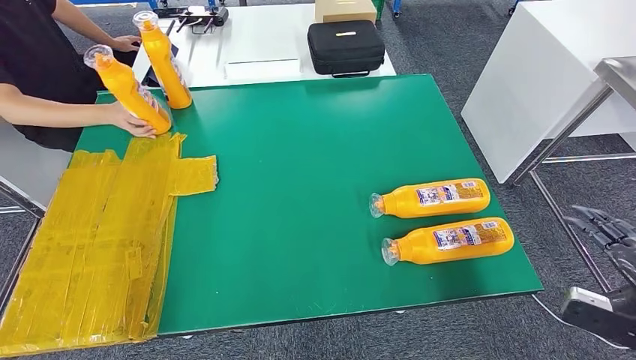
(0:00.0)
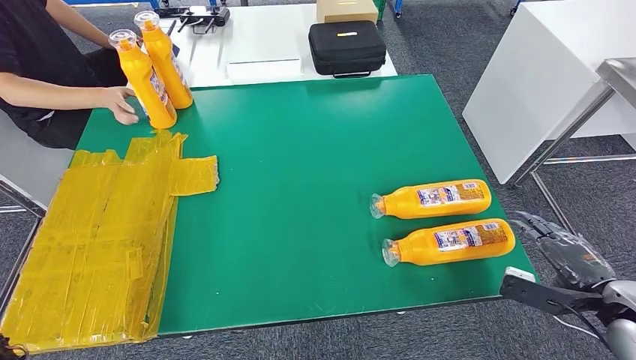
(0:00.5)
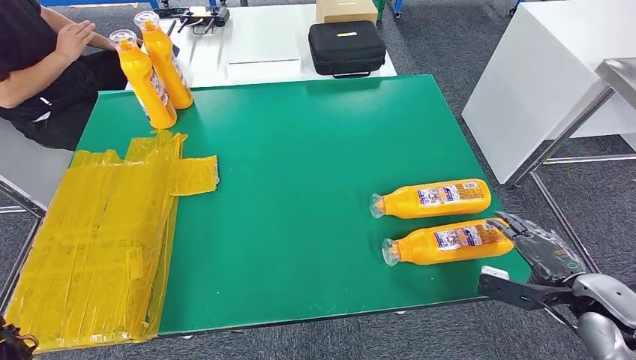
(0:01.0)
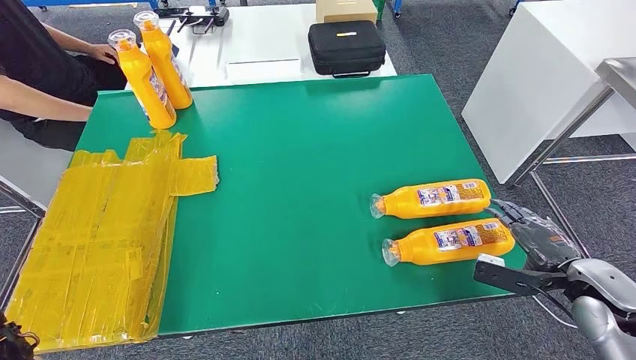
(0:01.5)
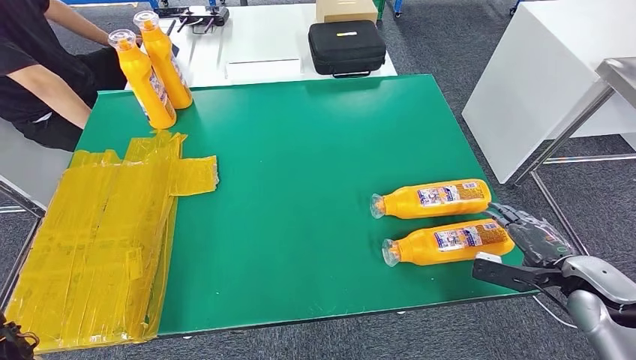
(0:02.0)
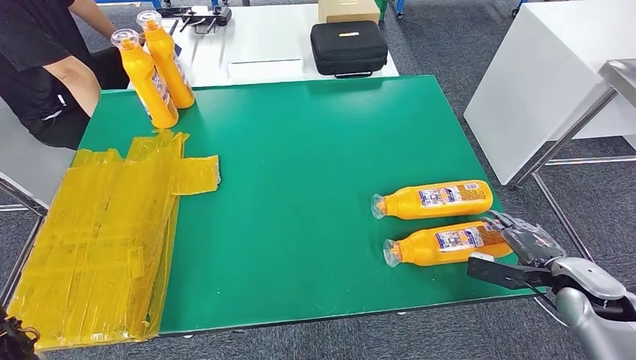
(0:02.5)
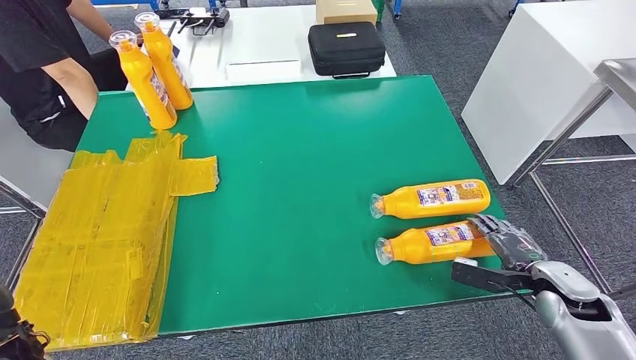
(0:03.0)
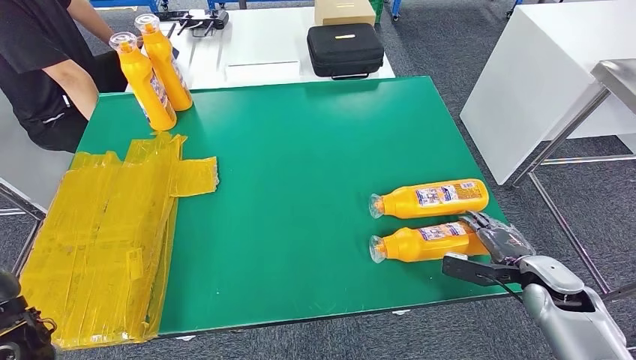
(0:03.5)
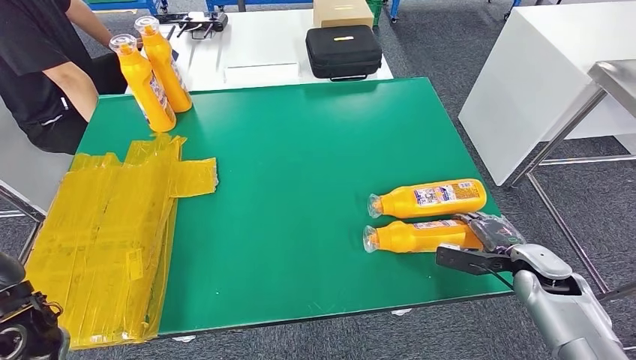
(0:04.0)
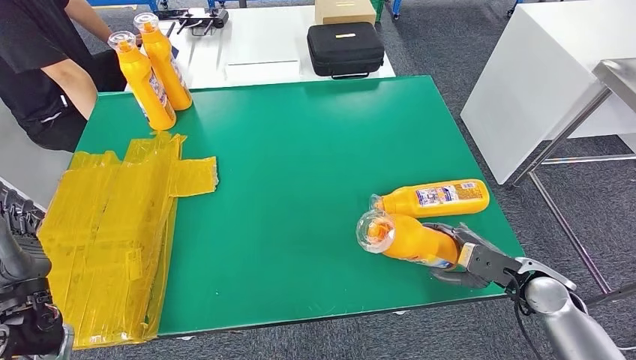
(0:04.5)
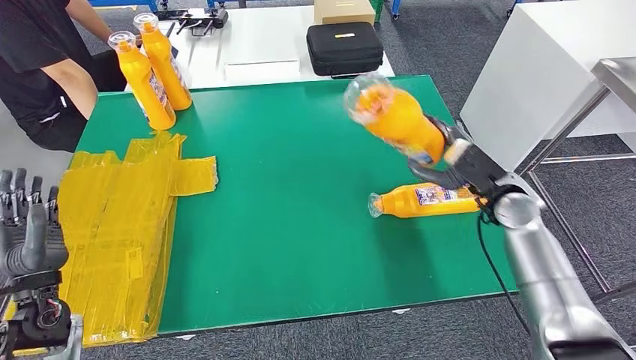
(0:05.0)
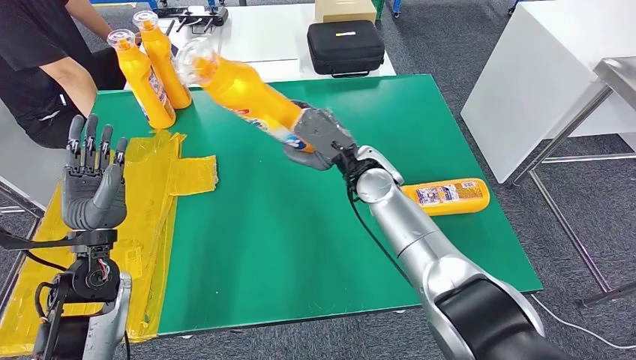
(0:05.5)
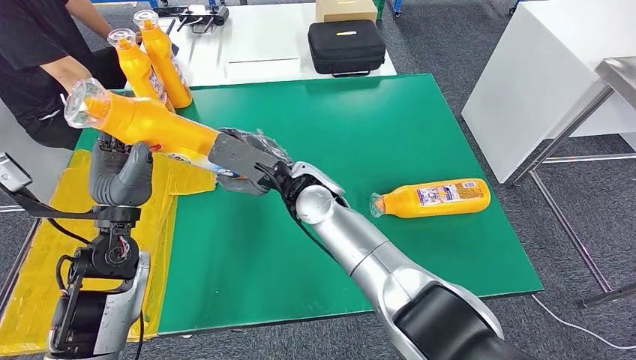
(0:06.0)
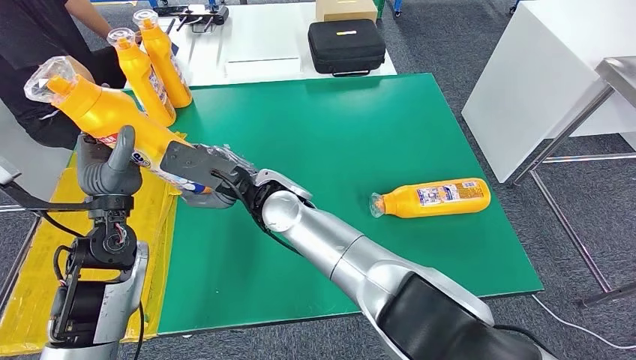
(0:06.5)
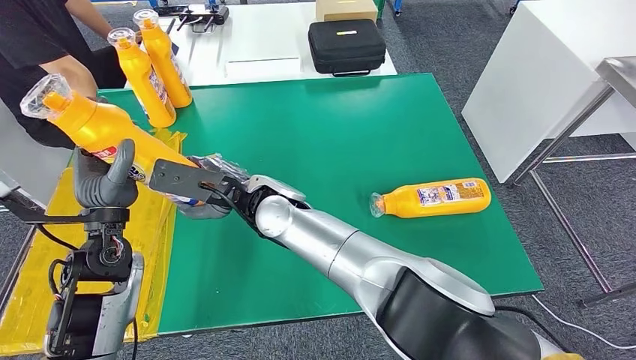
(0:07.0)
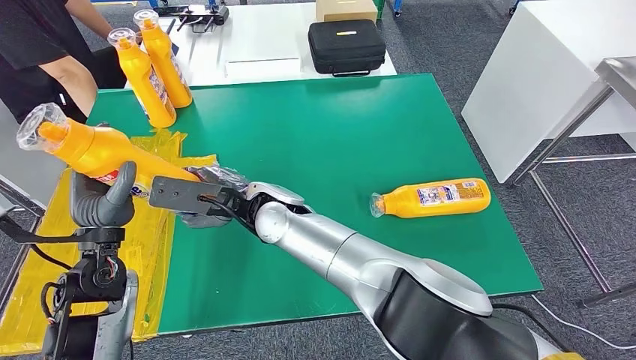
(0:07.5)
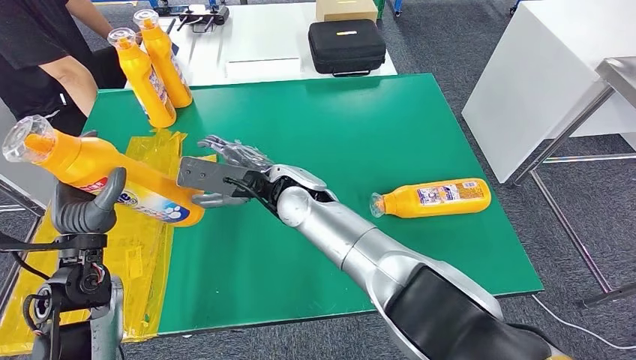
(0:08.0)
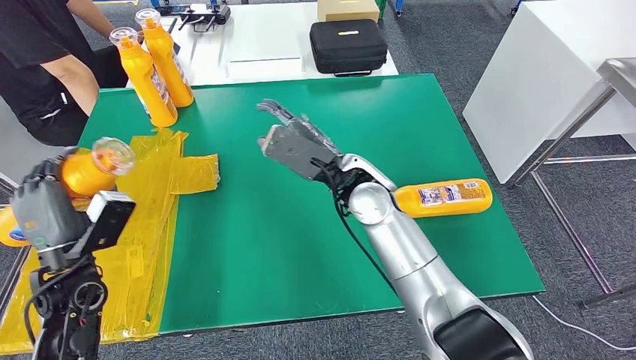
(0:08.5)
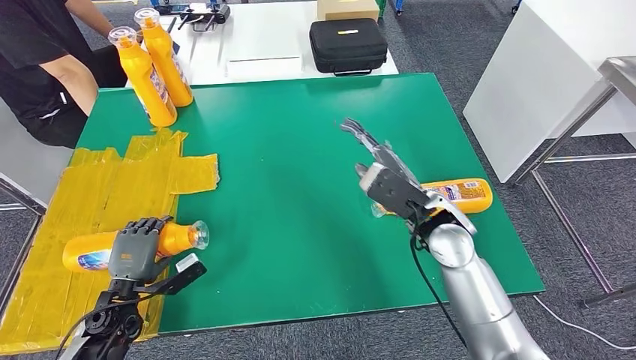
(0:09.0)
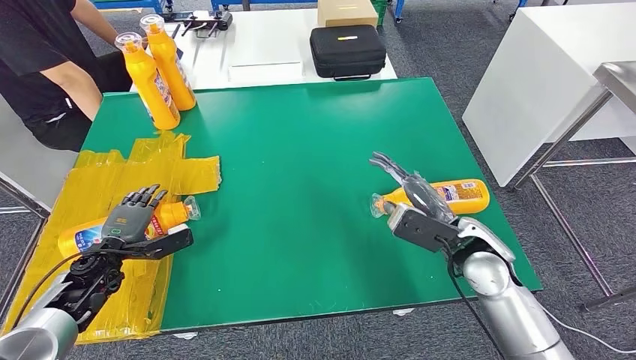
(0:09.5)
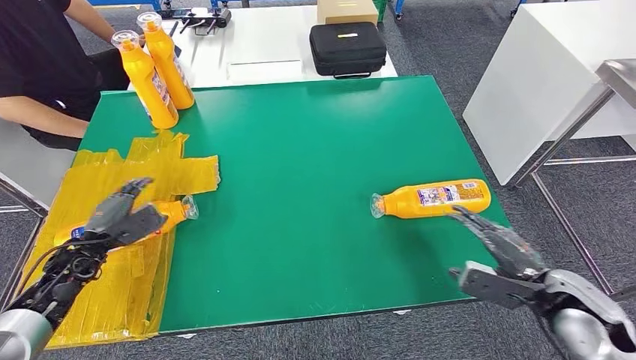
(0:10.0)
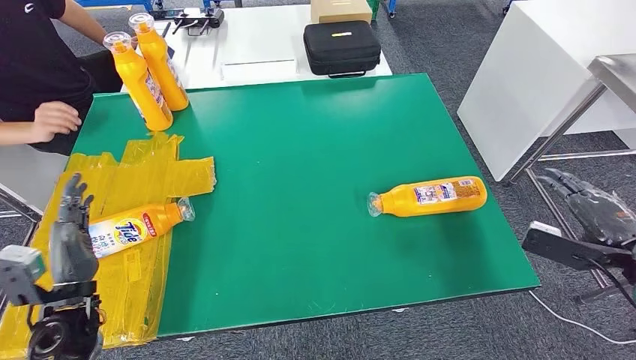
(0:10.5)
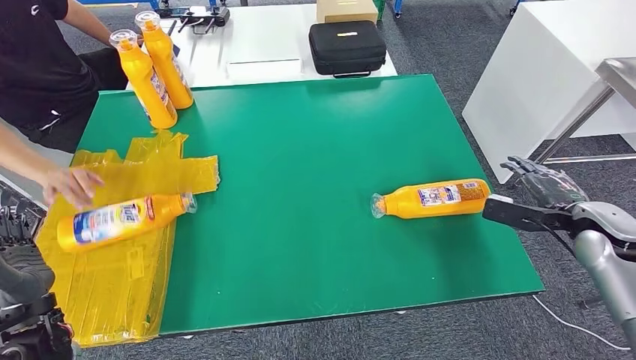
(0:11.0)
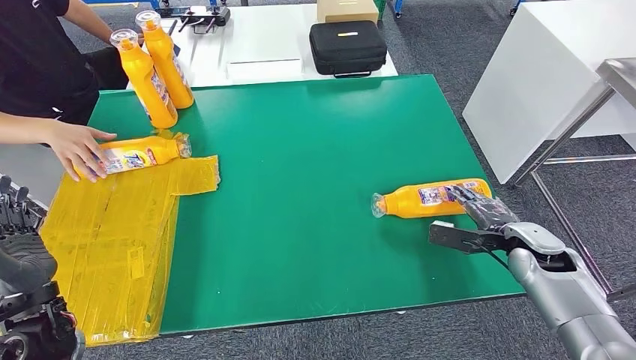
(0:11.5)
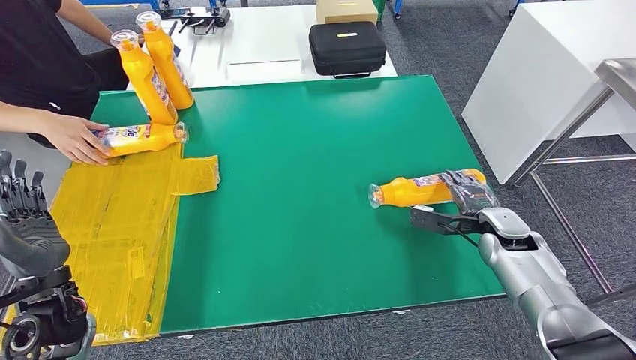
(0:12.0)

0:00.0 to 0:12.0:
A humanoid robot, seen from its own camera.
Step, 0:00.0 to 0:05.0: Pick up the fast-moving consumer goods bottle from the table.
Step, 0:05.5 to 0:10.5: Flip the fast-moving consumer goods bottle to the front side.
0:00.0 to 0:02.0: The left hand ends up some 5 cm from where it was. The right hand travels forward and downward by roughly 15 cm.
0:06.0 to 0:08.0: The left hand moves some 5 cm.

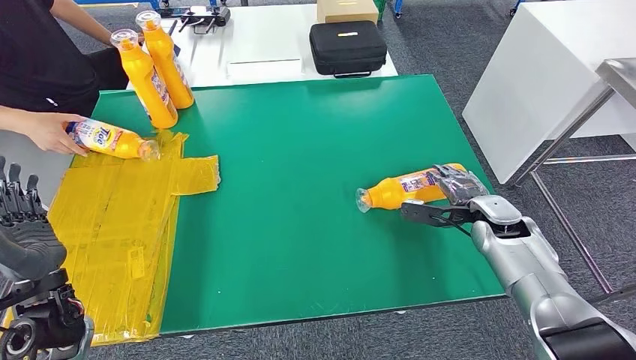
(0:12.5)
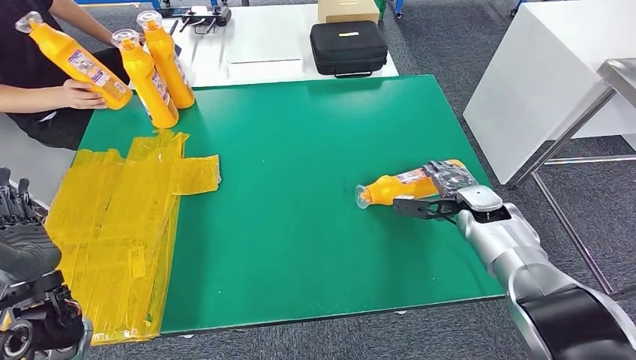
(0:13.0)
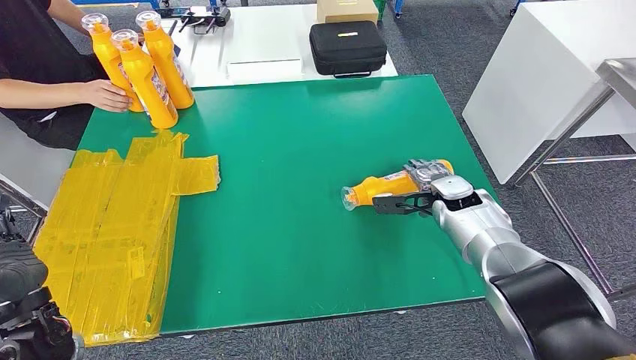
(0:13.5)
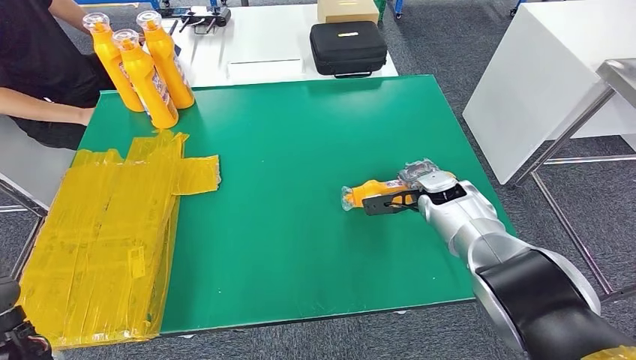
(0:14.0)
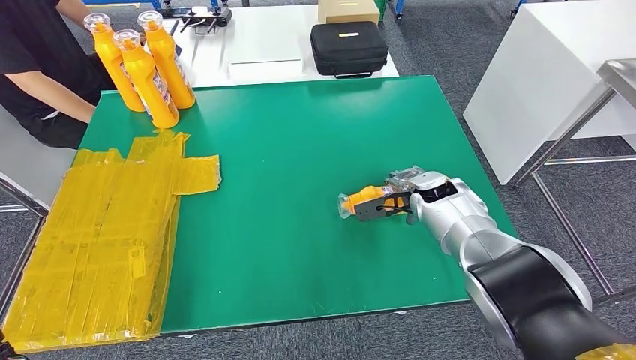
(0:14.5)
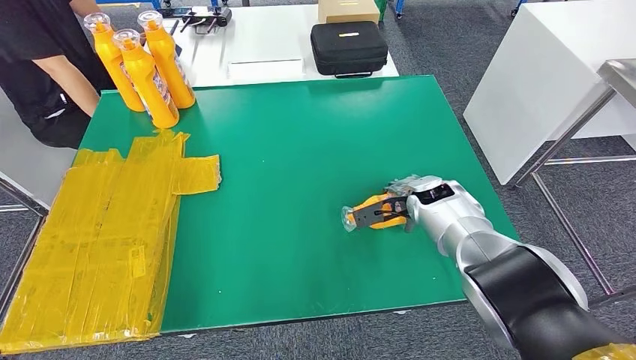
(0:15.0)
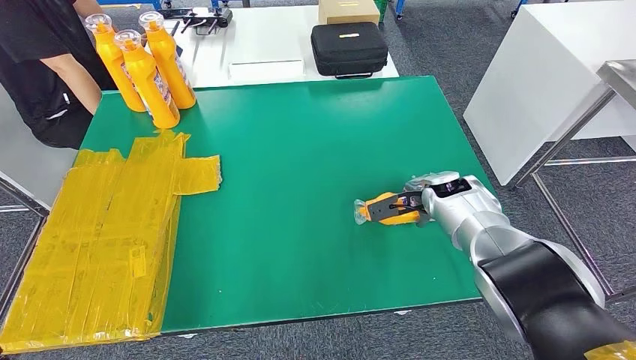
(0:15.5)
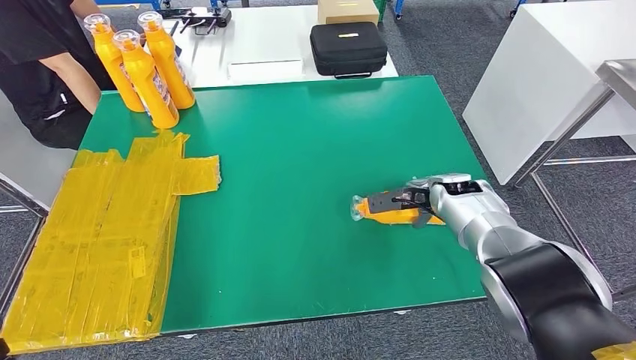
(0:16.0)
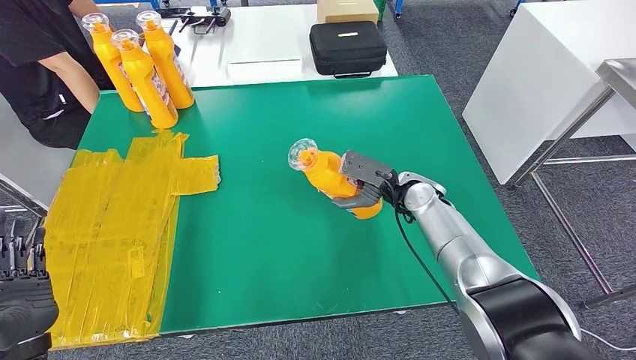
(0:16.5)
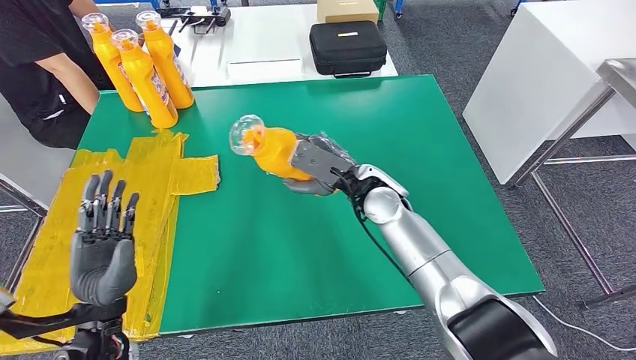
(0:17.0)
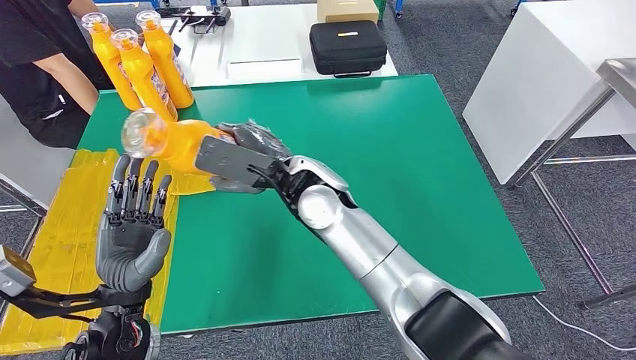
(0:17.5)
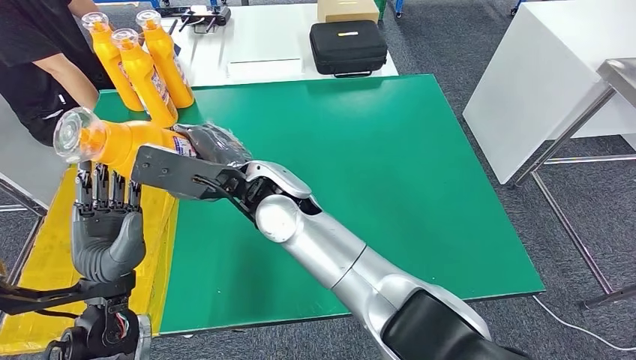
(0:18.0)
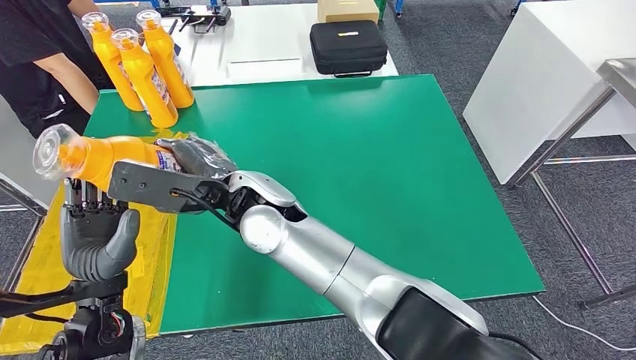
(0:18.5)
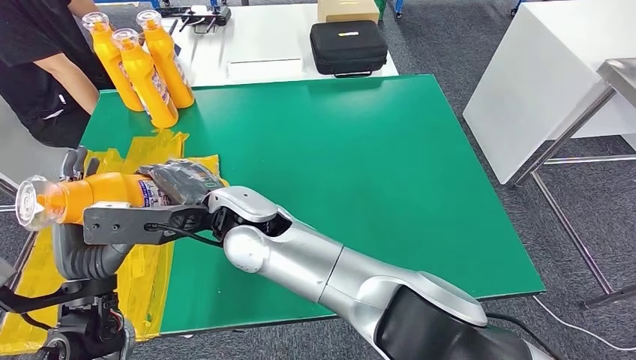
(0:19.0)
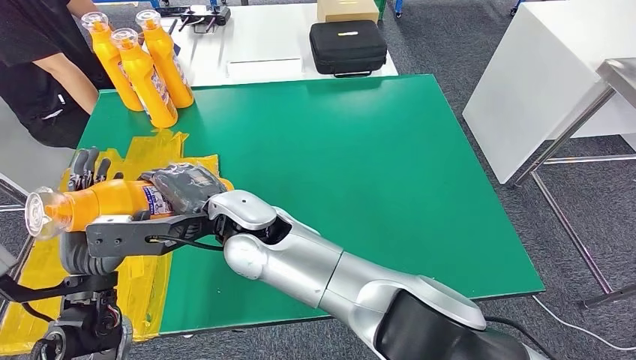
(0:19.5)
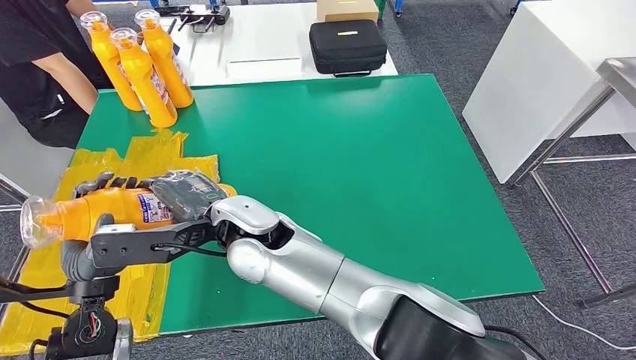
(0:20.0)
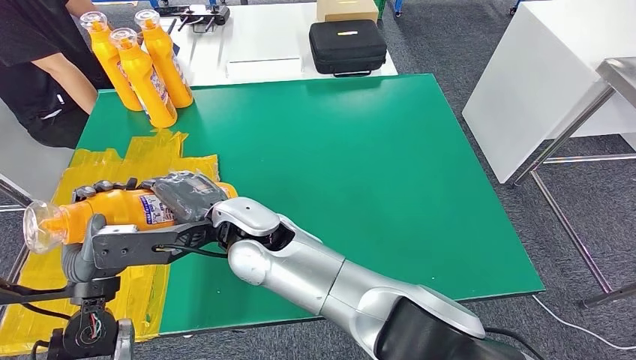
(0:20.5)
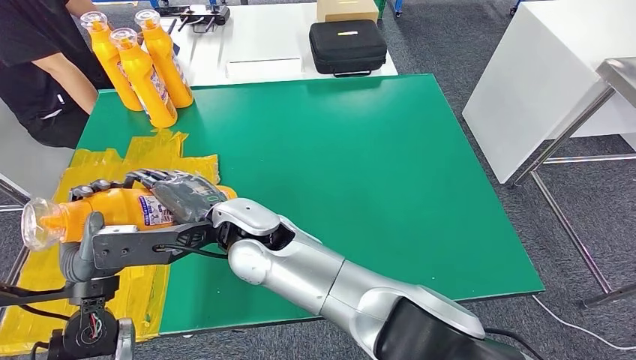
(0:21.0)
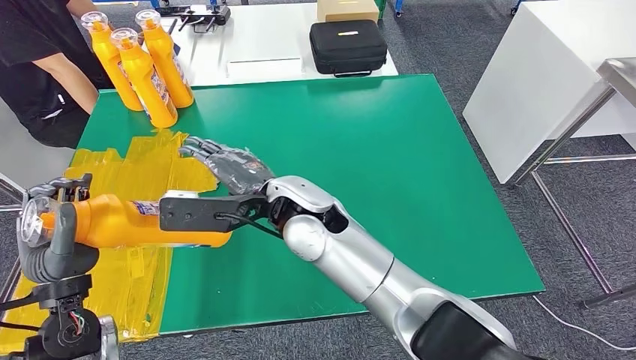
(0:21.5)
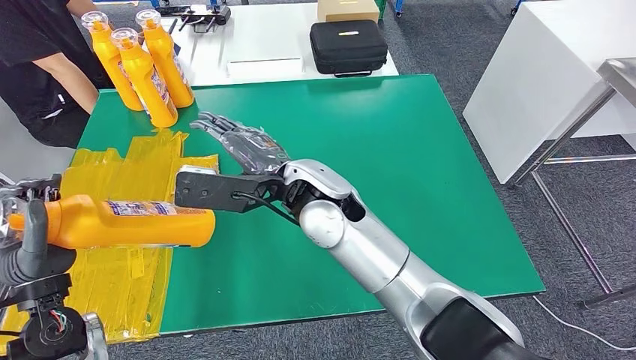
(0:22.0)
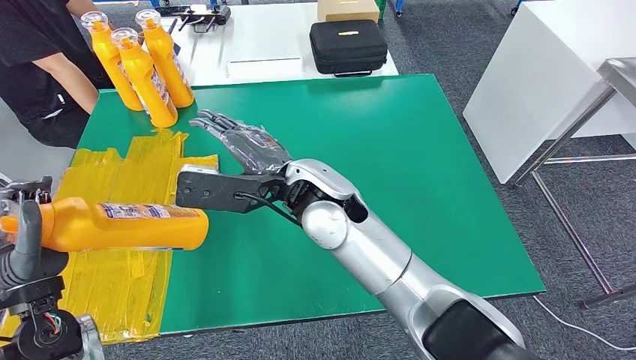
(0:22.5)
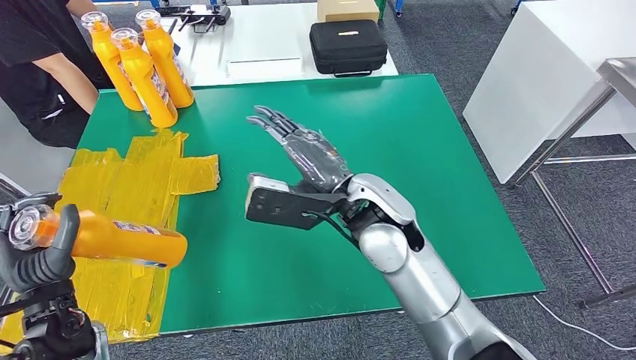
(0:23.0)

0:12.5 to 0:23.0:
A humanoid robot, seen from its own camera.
Step, 0:12.5 to 0:17.5: Pick up the fast-moving consumer goods bottle from the table.
